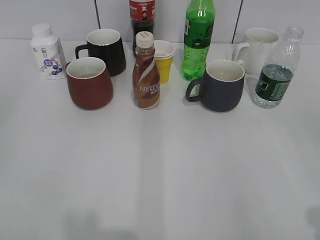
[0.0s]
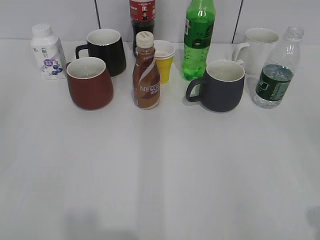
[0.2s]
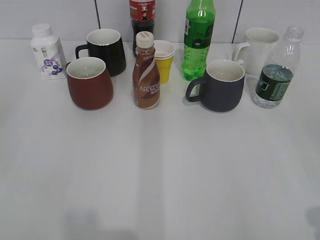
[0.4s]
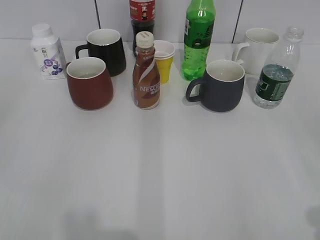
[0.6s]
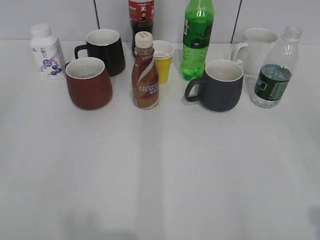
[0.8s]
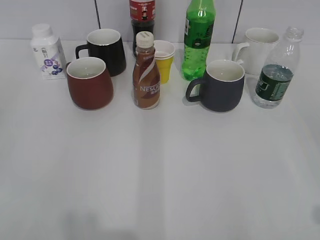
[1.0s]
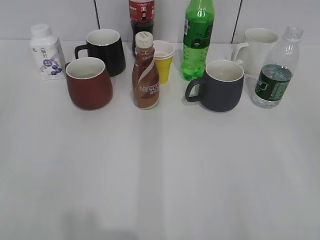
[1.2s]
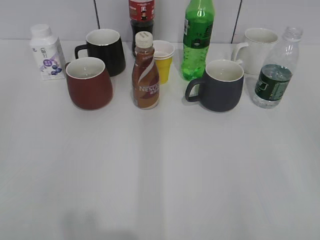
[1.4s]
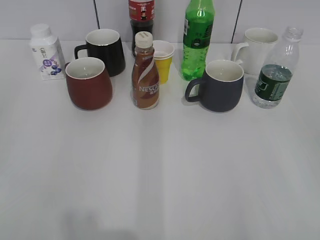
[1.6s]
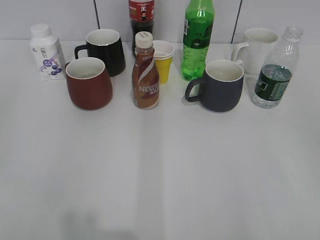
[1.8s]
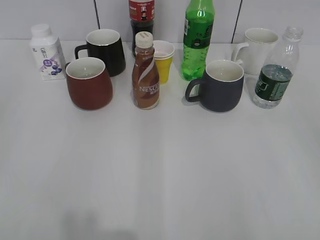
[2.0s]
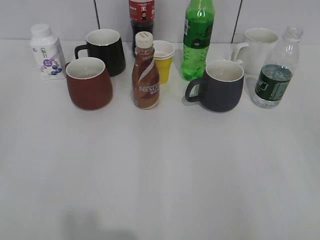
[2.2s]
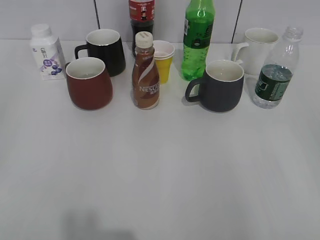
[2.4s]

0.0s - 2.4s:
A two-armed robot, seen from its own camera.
1.2s - 2.4s: The two grippers keep their place.

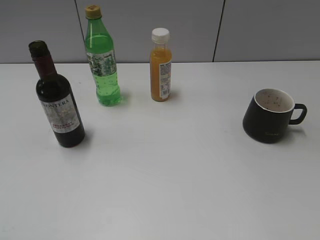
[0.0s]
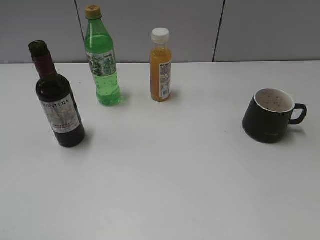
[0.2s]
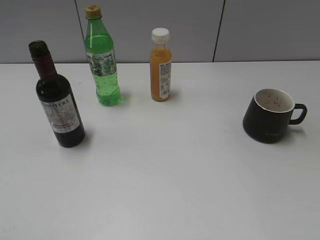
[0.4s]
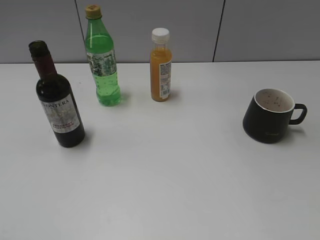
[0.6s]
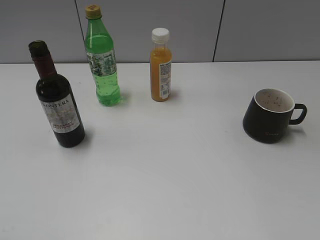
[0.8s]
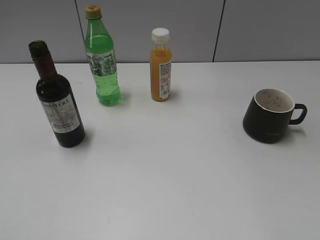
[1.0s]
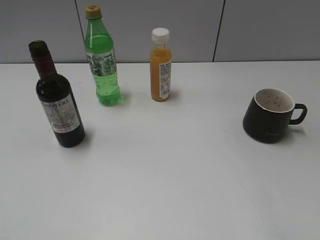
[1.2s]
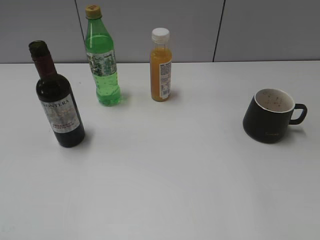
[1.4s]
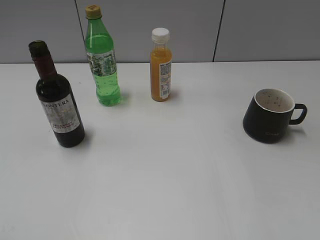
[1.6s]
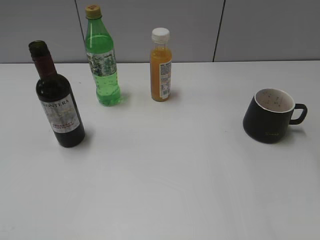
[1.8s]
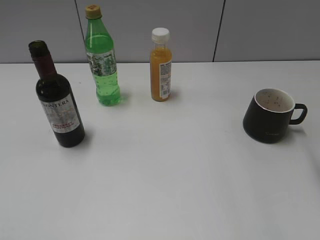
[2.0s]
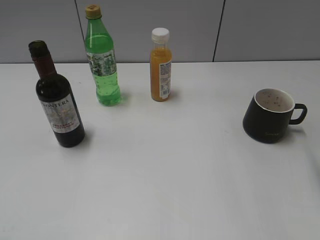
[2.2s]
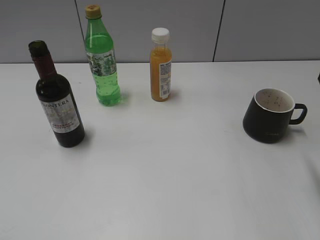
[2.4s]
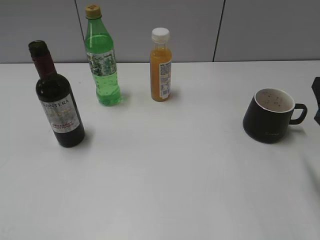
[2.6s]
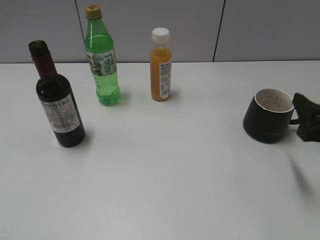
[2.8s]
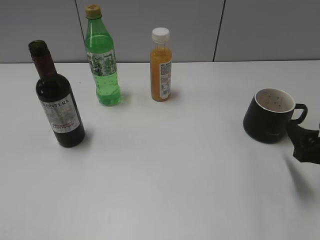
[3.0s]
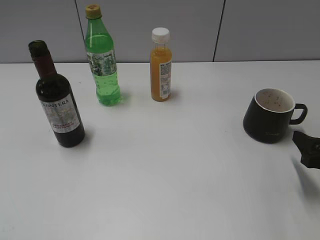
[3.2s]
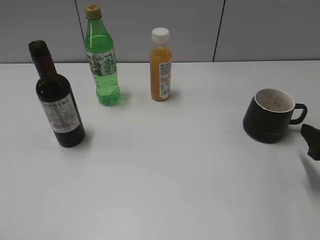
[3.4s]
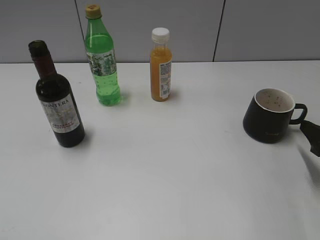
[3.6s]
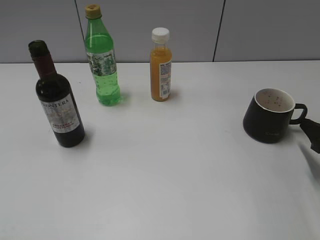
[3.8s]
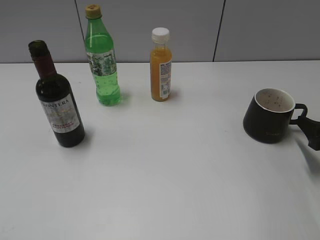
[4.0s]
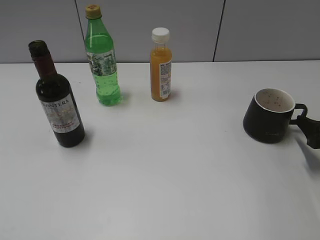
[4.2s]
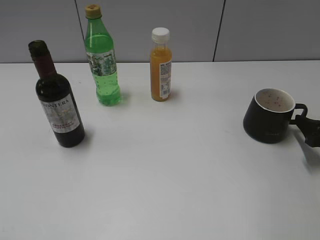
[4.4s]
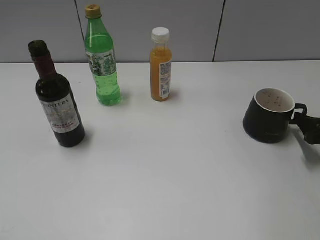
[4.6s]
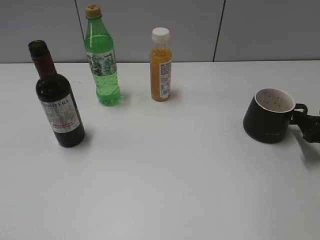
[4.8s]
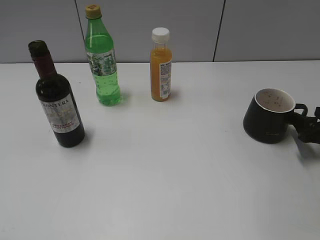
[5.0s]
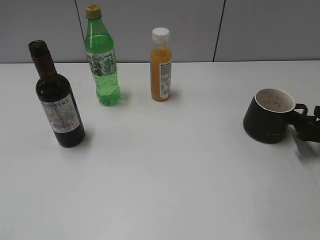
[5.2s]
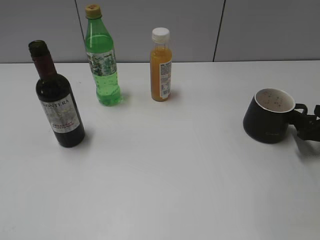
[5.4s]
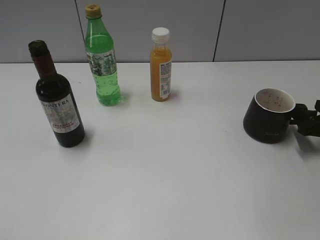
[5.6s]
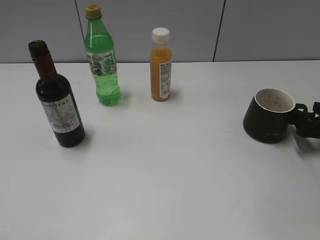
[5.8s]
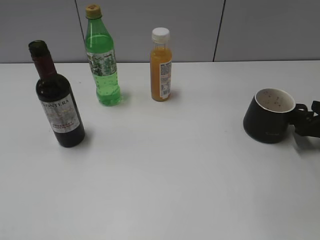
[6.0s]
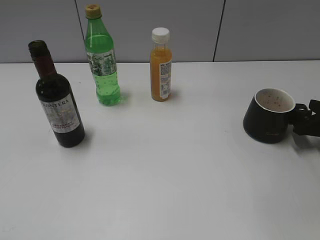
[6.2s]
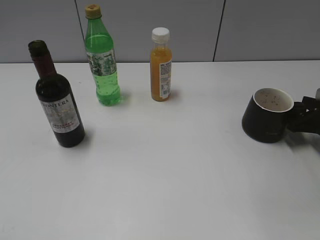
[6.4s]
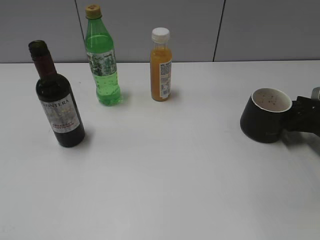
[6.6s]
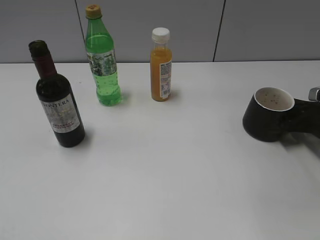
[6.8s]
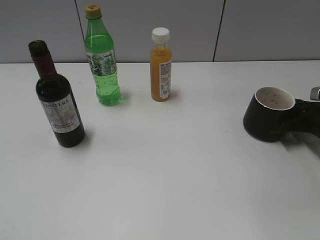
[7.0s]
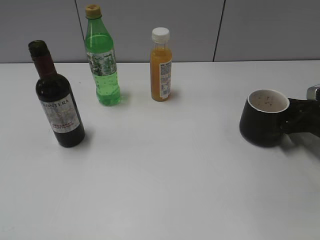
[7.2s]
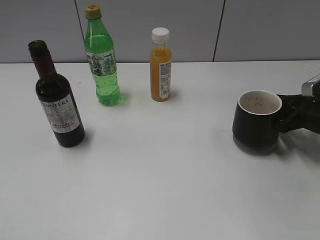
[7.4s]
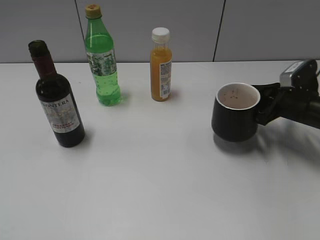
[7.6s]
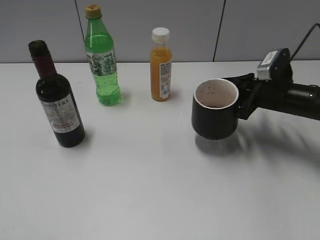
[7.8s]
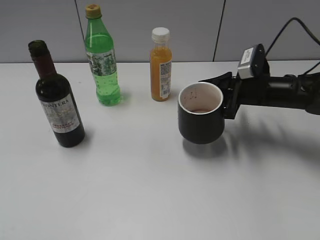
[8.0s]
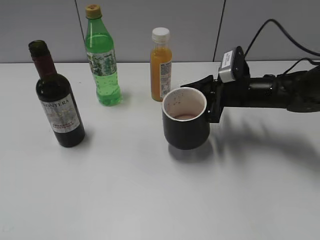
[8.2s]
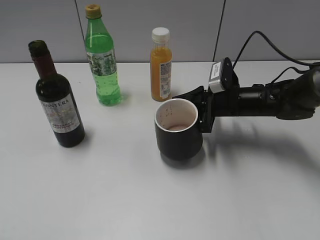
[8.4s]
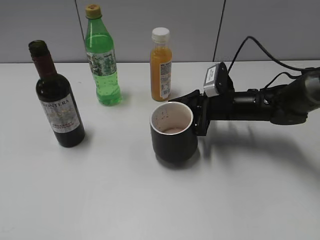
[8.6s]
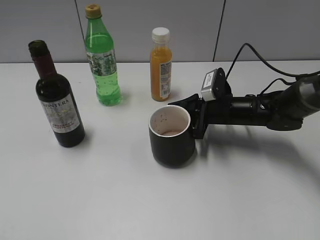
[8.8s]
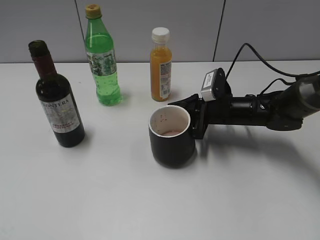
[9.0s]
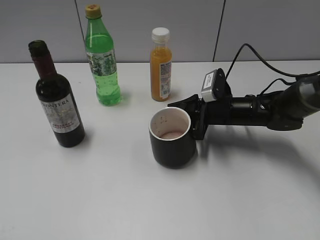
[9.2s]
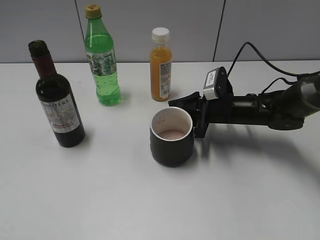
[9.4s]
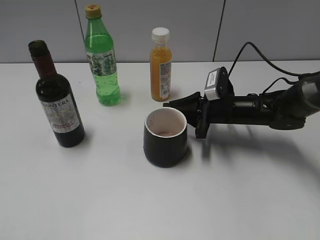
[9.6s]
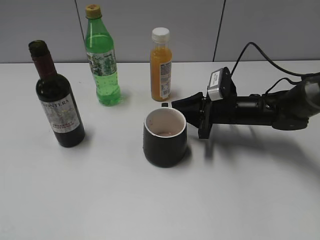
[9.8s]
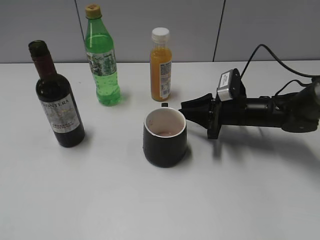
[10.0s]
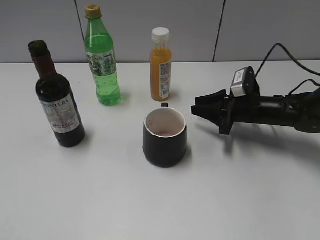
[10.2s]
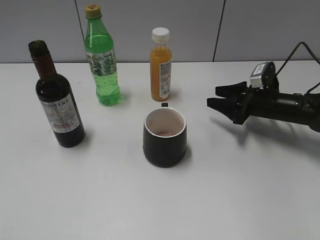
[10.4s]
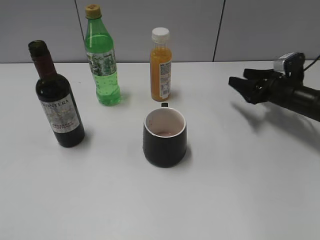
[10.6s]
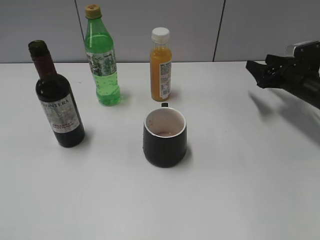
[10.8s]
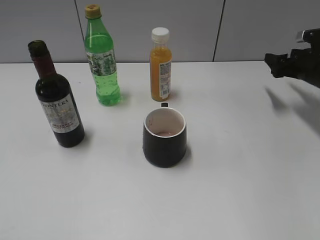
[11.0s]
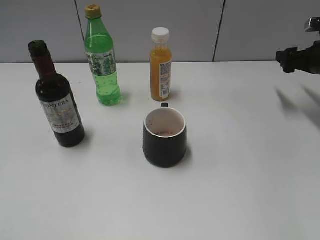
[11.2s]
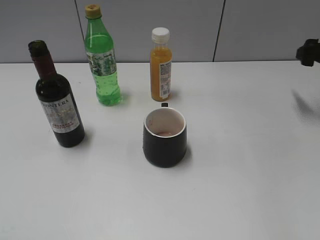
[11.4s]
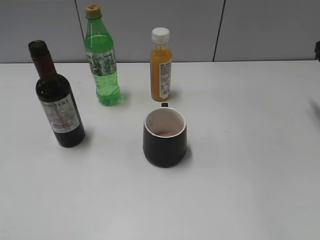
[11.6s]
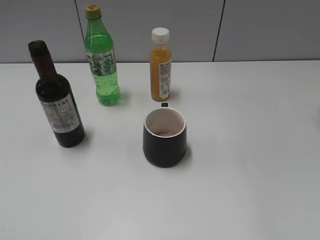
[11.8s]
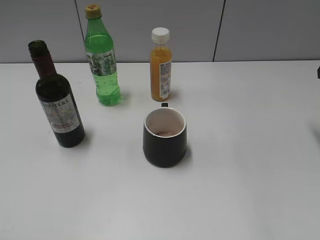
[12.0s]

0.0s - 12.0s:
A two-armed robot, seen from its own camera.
Step, 2.4s - 7.0s: Grasp the black cup with right gripper.
Step, 7.2s - 9.8s: Place the black cup in the center of view with right gripper.
1.6s - 3.0s: The right gripper heads downward, covering roughly 20 cm.
3.0s - 4.4s: The right gripper moves forward and to the right, about 10 cm.
4.4s - 6.0s: The grippers stay close to where they were, moving slightly.
6.0s - 7.6s: The right gripper travels to the left by about 10 cm, and closes its fingers.
7.6s - 9.0s: The right gripper travels to the left by some 15 cm.
9.0s - 10.4s: The right gripper heads to the right, covering some 10 cm, and opens its fingers.
10.4s - 12.0s: The right gripper travels upward and to the right by about 20 cm.

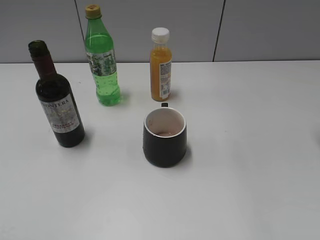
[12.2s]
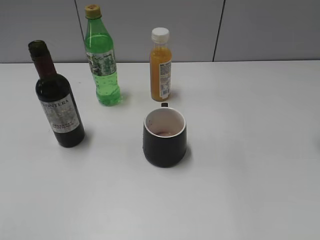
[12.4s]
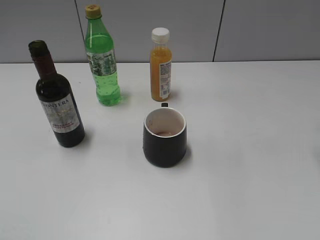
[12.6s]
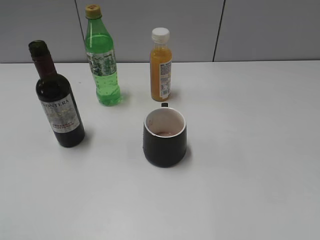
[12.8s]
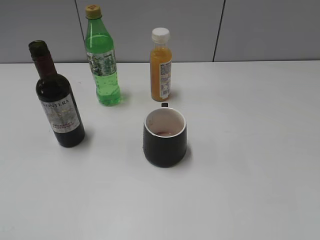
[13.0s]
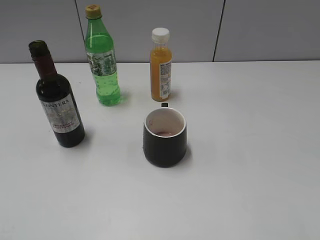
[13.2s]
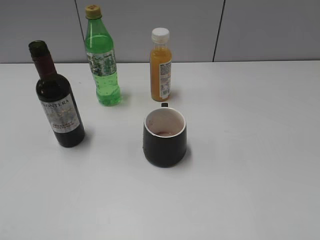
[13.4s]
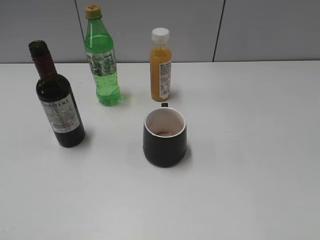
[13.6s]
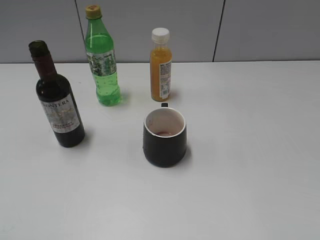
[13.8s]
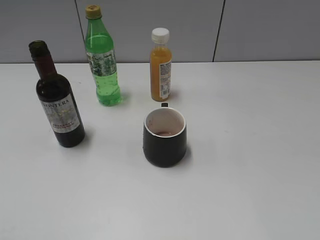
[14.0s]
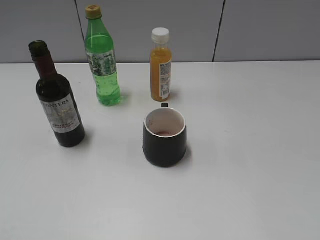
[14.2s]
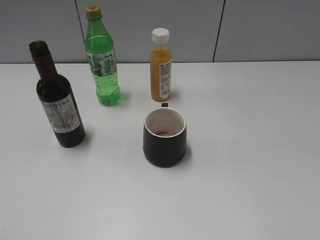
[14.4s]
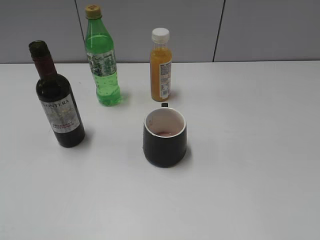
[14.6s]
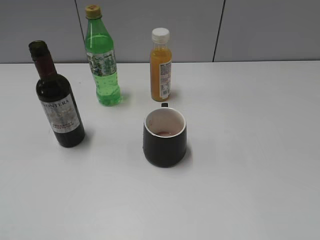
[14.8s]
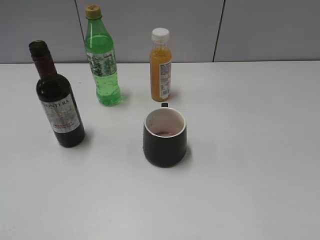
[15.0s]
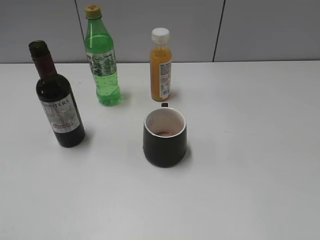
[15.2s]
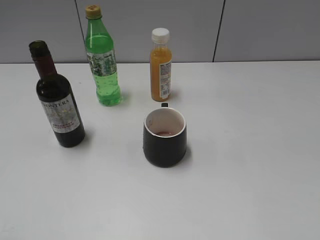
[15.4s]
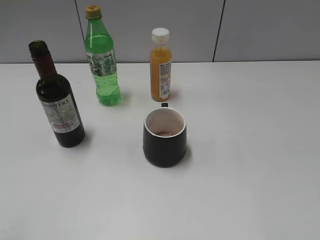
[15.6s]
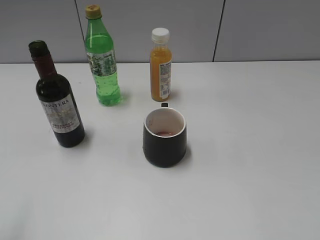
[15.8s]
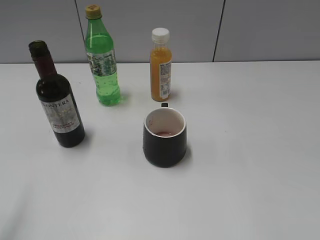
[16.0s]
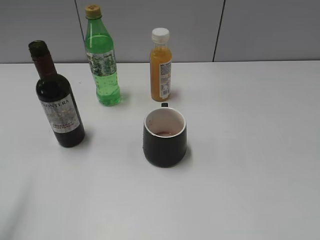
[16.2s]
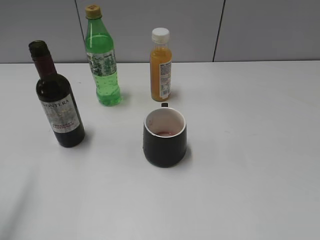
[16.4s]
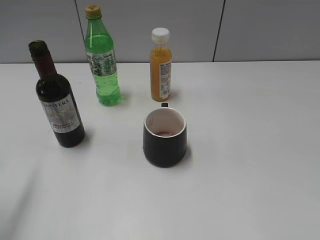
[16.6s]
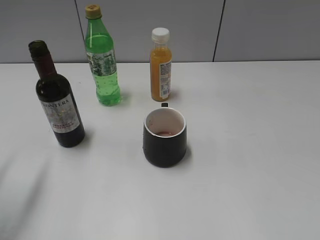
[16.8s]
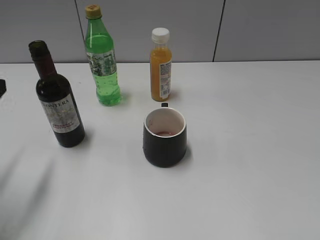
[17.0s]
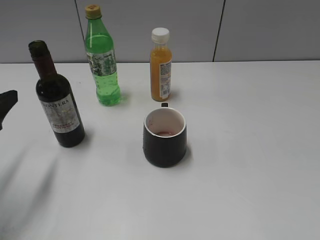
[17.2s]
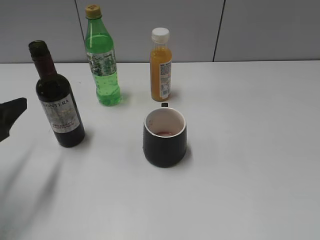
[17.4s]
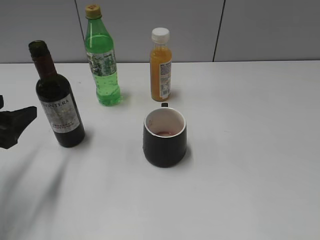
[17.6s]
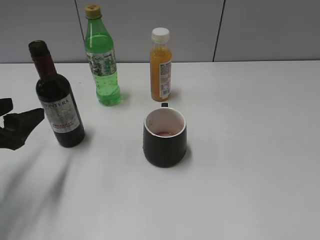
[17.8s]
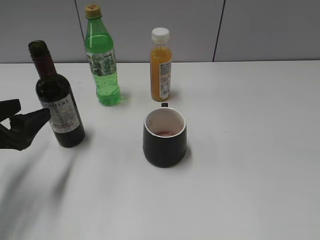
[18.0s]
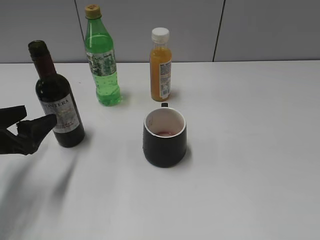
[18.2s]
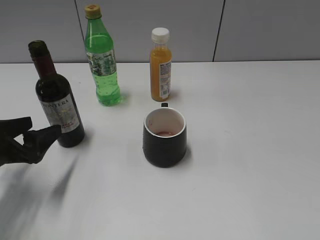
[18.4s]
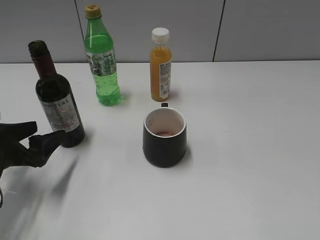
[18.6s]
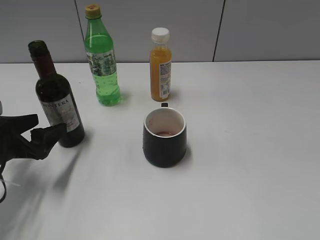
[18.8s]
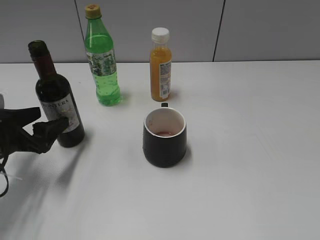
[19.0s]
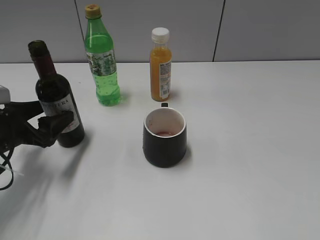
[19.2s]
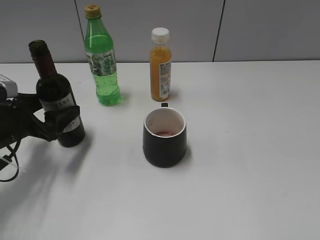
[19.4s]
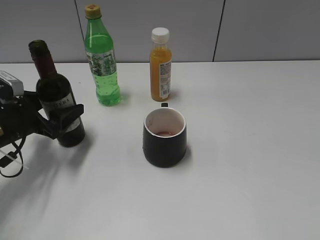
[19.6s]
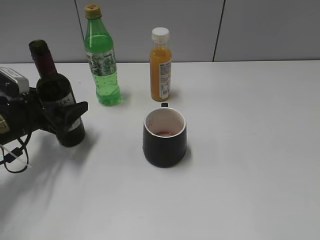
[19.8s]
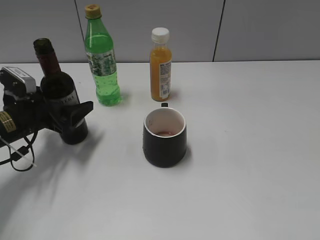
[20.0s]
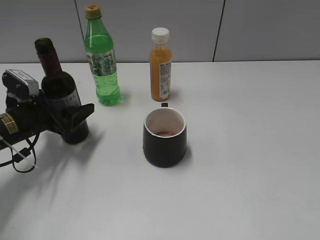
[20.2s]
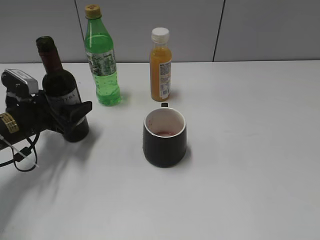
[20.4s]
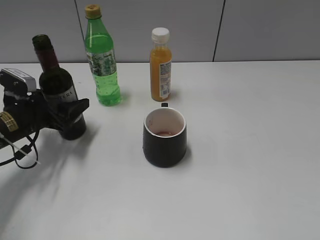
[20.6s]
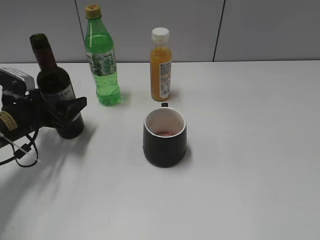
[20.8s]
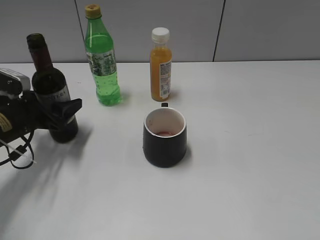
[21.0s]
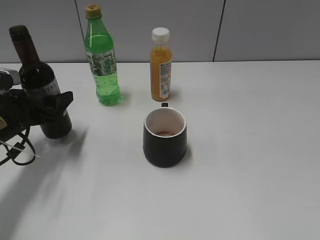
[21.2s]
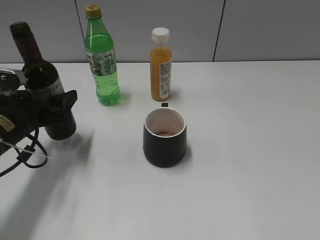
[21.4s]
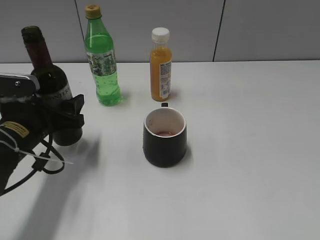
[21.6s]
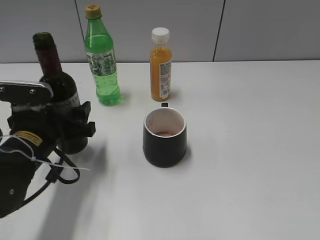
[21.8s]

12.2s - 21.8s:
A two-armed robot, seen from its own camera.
Step, 12.2s - 20.8s: Grasp the bottle with red wine with left gripper.
15.4s - 17.0s: The left gripper is displaced forward and downward by approximately 20 cm, and closes up.
17.0s - 18.6s: The left gripper shifts approximately 10 cm downward, and opens its fingers.
18.6s - 20.2s: The left gripper is displaced forward by approximately 10 cm.
20.2s - 21.8s: The left gripper moves backward and to the right, some 10 cm, and closes.
